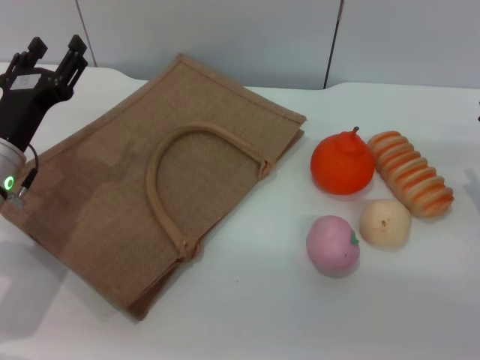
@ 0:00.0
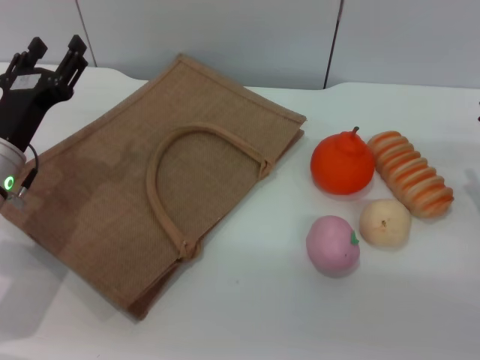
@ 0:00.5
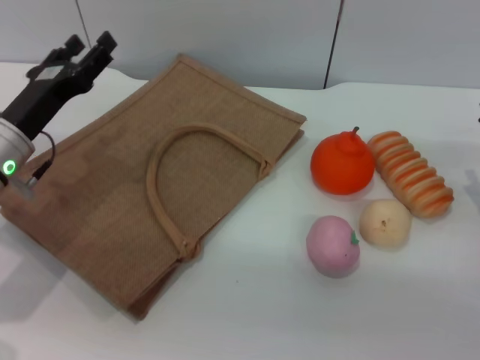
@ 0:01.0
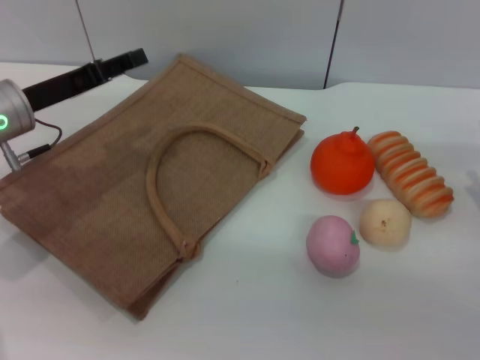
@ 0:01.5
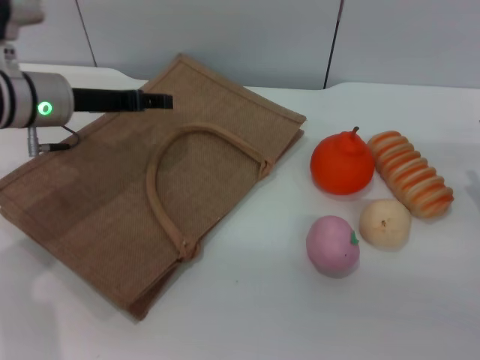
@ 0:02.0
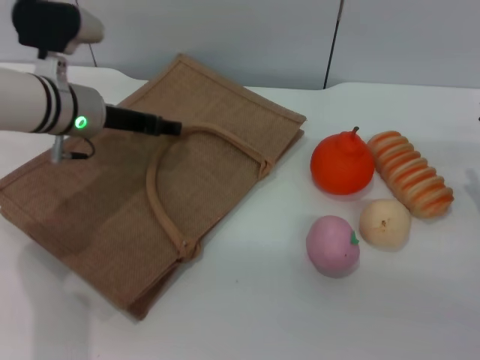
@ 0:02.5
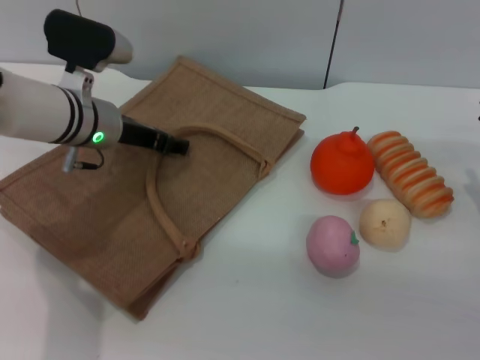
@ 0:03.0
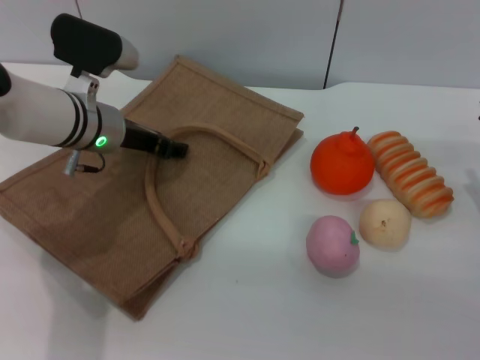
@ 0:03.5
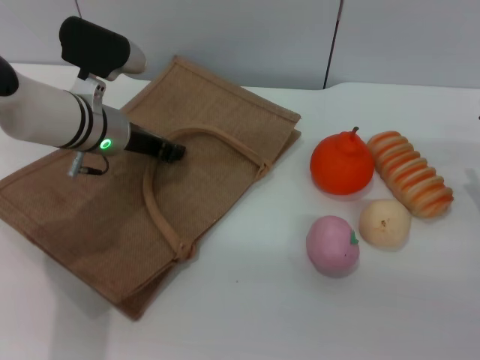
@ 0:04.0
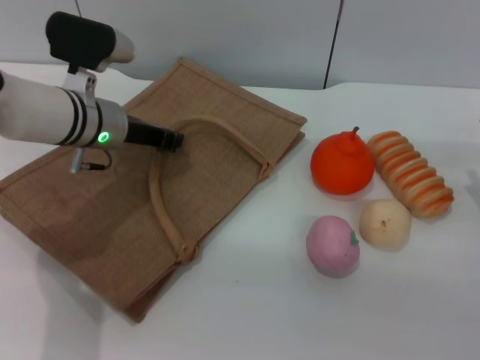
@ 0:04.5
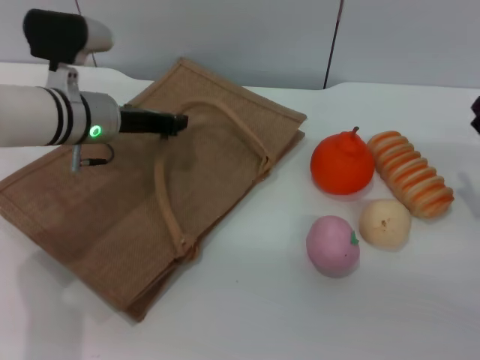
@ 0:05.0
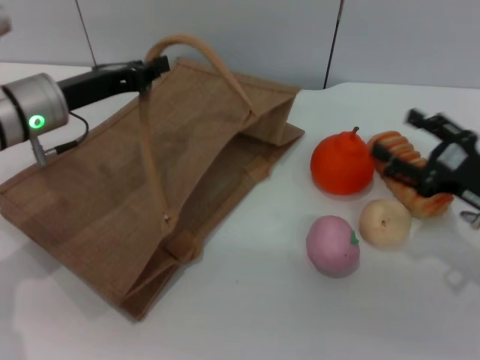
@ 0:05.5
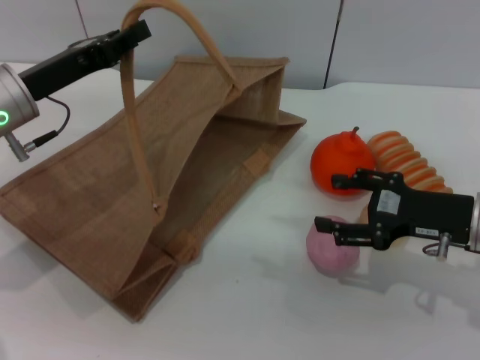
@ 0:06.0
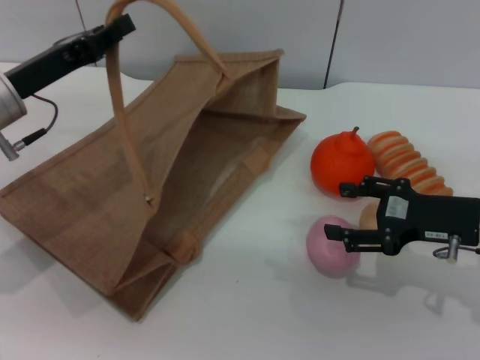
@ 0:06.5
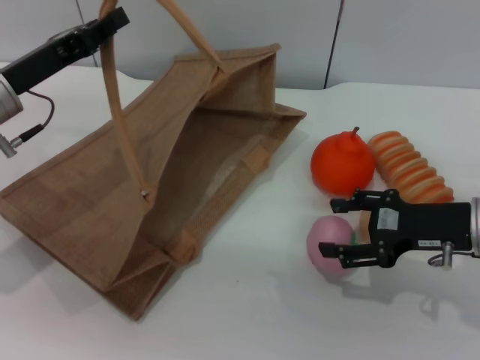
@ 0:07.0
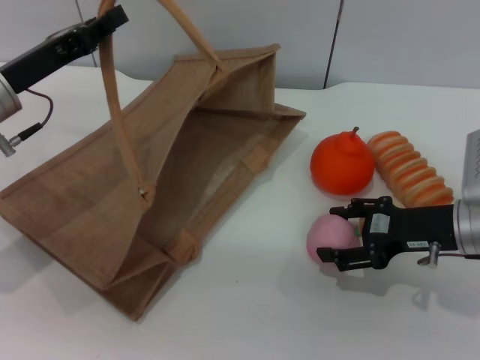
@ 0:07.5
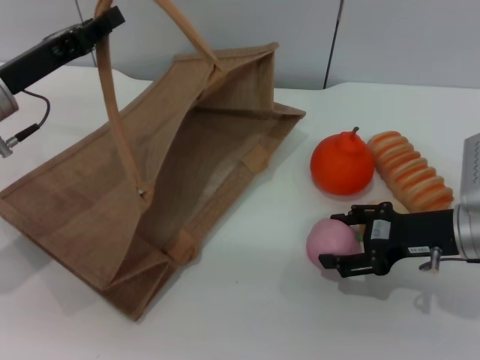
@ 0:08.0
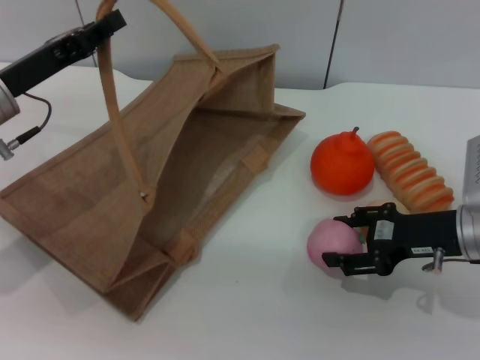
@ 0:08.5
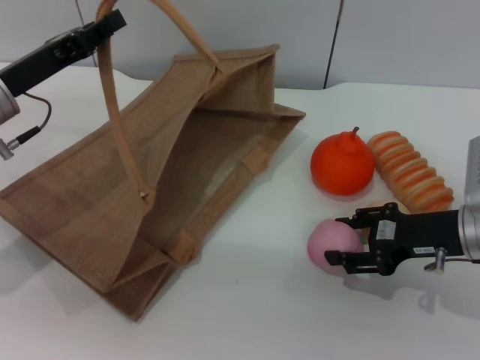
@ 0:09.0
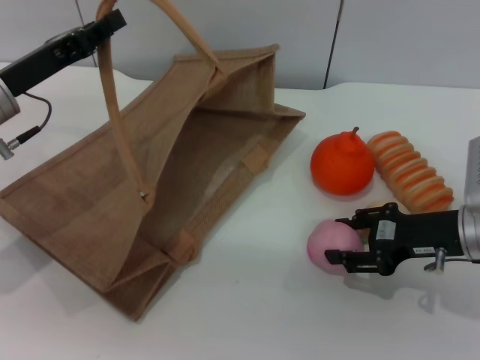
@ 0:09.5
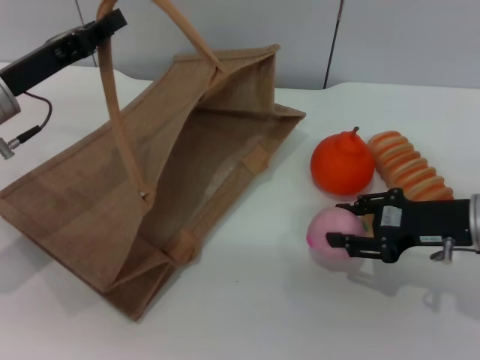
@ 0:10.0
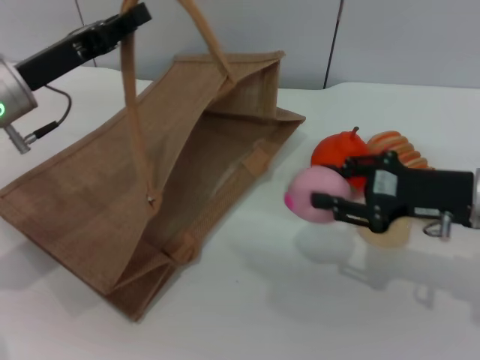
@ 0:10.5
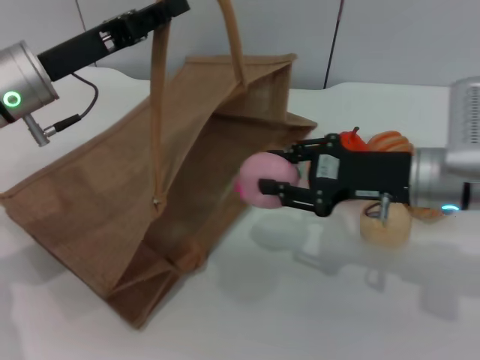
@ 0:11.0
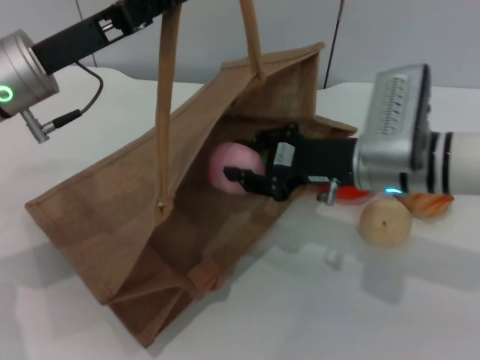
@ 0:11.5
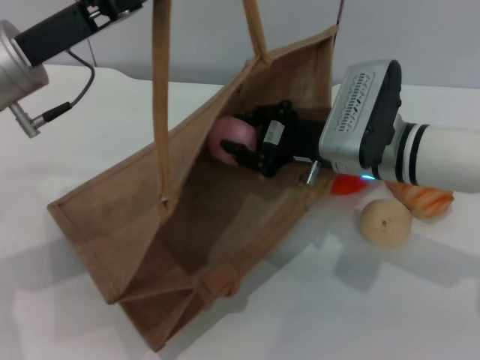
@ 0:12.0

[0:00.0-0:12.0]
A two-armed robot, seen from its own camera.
Task of the whole recording: pick up the peach from the table and place it in the brown handbag.
Step, 0:00.0 to 0:05.0: Lift the woven bag with the left gripper to open it.
Step, 0:05.5 to 0:10.0: Pick up the peach with the right gripper.
0:00.0 to 0:02.0: The left gripper shifts some 10 cm forward and upward.
0:02.0 to 0:04.0: The left gripper is displaced to the right by some 5 cm, and closes up.
0:04.0 to 0:06.0: The left gripper goes roughly 10 cm to the left and backward, while the right gripper is displaced to the left by approximately 5 cm.
0:06.0 to 0:08.0: The grippers move only a little.
0:08.0 to 0:10.0: The right gripper closes its fingers.
0:10.0 to 0:12.0: The left gripper ends up approximately 5 cm from where it was; the right gripper moves to the left, approximately 15 cm.

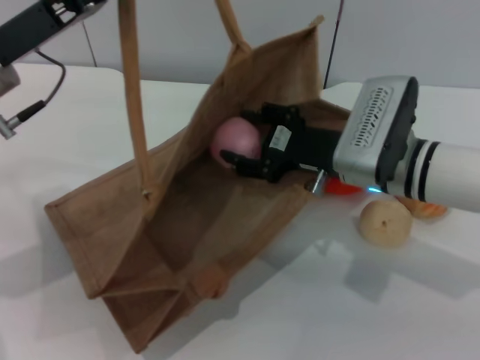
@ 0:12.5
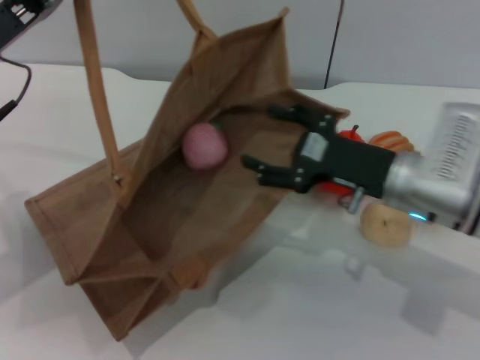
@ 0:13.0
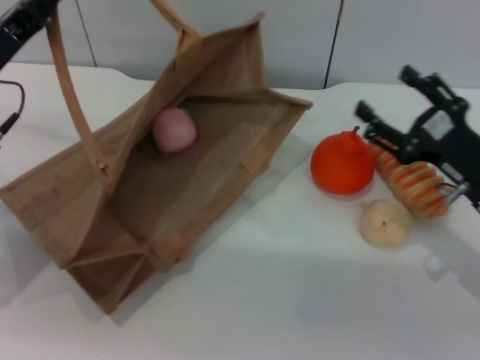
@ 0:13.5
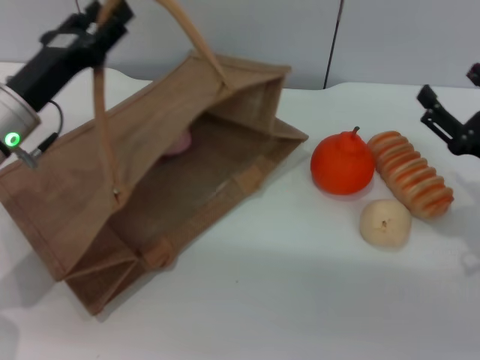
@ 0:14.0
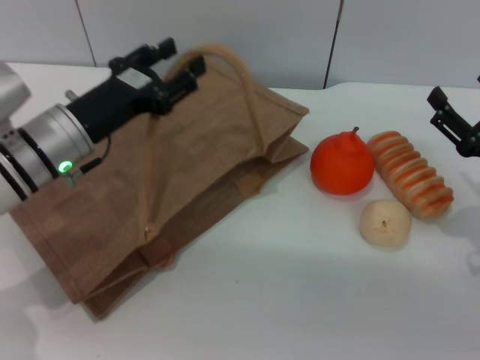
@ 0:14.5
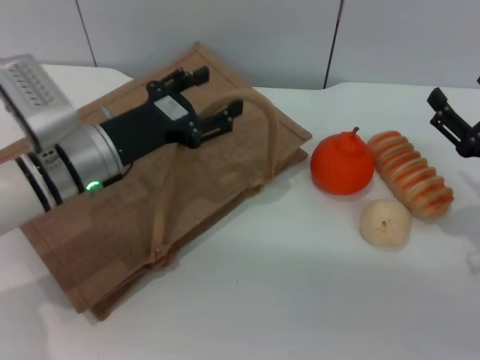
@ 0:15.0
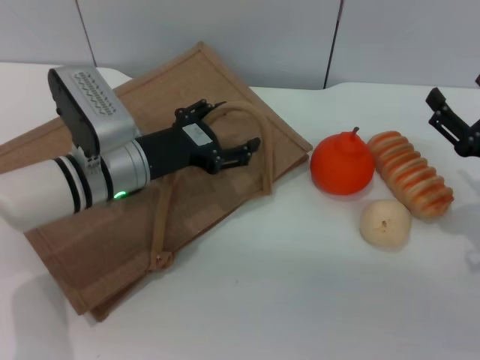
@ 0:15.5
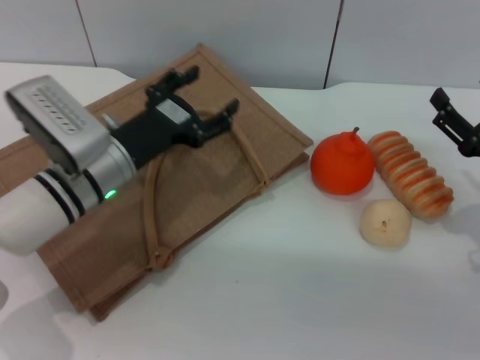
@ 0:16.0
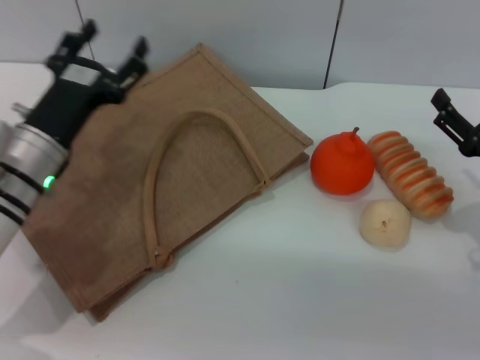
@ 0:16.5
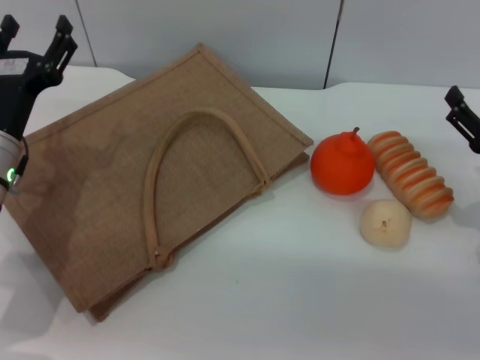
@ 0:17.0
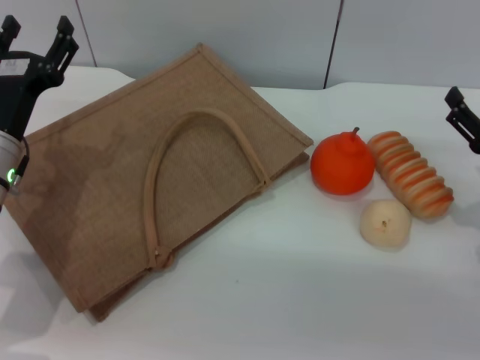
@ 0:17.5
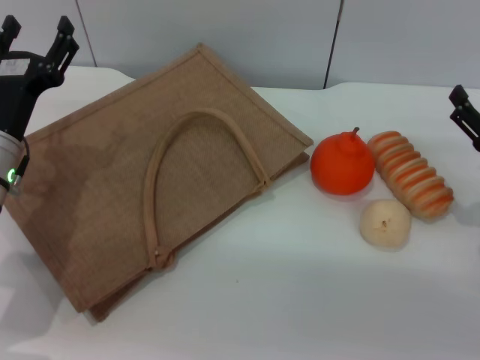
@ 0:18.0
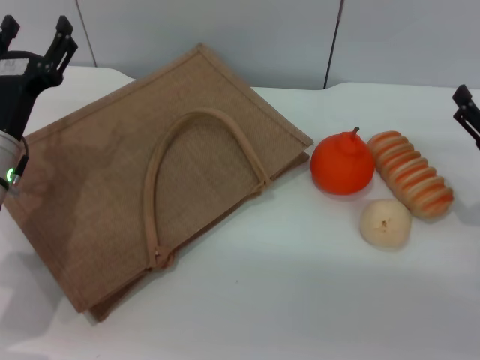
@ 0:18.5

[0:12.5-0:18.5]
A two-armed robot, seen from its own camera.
Task of the whole recording: pick up the peach from the table and place it in the brown handbag.
Step, 0:13.5 to 0:15.5: Lower the woven bag with the left gripper to close it.
0:12.5 to 0:14.5: The right gripper is displaced to the right and backward by roughly 20 cm, and opens up, while the left gripper shifts approximately 10 cm downward, and opens its fingers.
0:16.5 to 0:18.5: The grippers move only a little.
